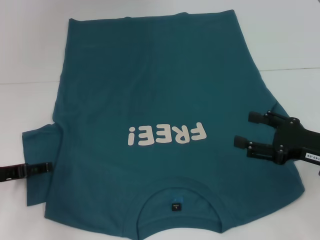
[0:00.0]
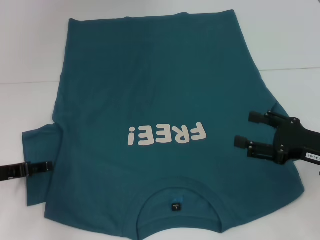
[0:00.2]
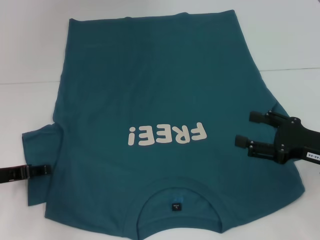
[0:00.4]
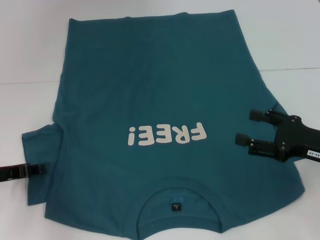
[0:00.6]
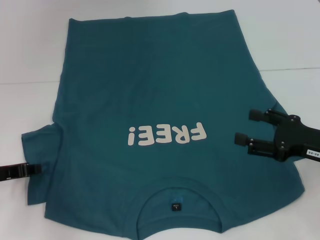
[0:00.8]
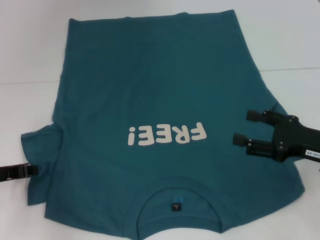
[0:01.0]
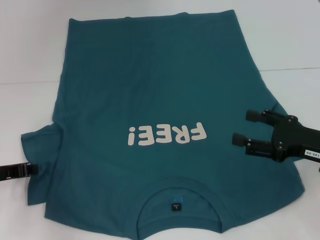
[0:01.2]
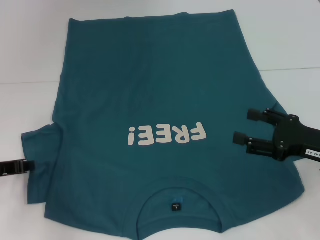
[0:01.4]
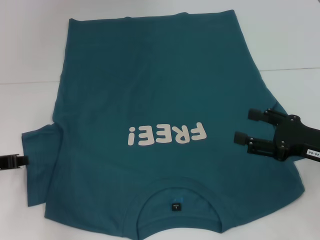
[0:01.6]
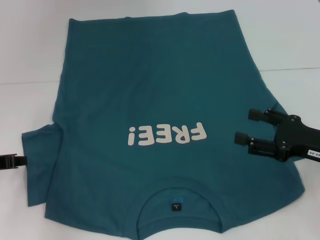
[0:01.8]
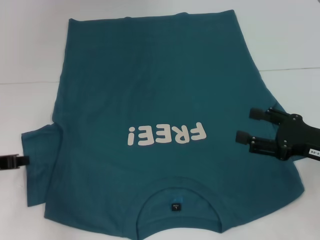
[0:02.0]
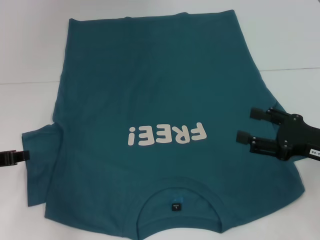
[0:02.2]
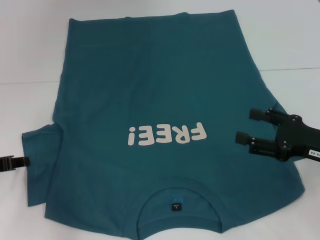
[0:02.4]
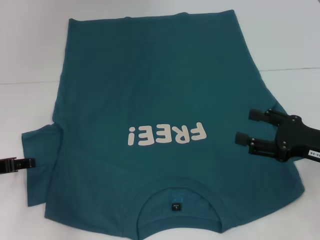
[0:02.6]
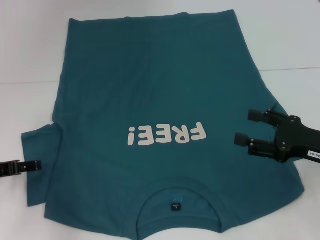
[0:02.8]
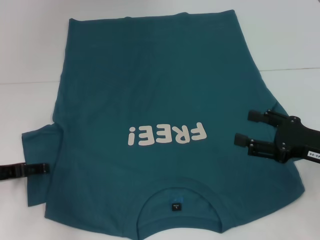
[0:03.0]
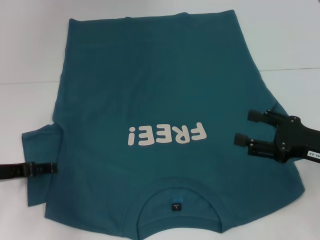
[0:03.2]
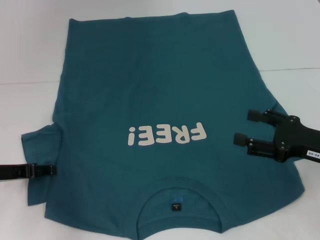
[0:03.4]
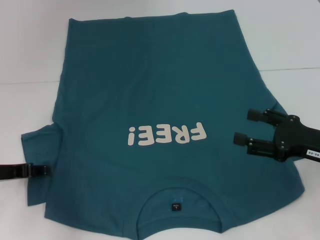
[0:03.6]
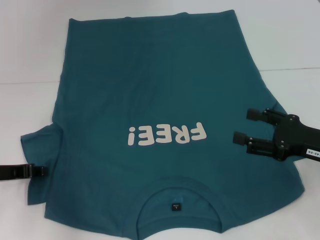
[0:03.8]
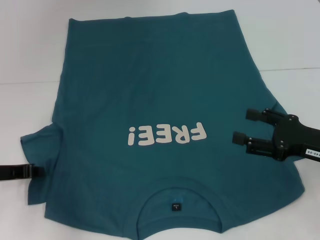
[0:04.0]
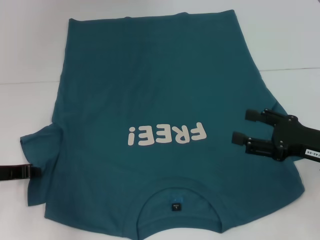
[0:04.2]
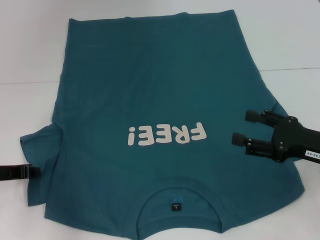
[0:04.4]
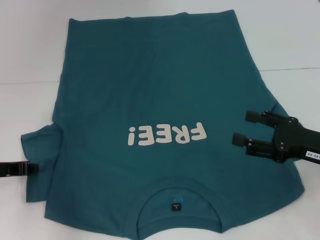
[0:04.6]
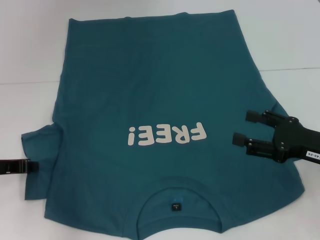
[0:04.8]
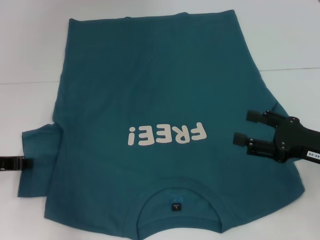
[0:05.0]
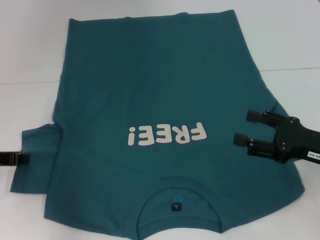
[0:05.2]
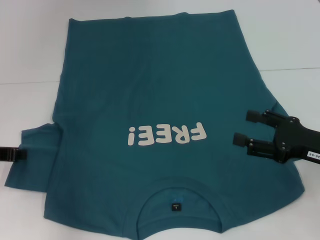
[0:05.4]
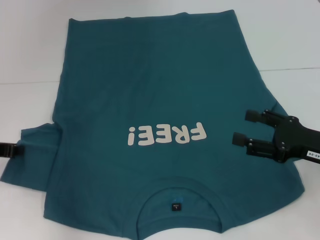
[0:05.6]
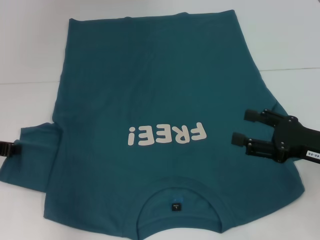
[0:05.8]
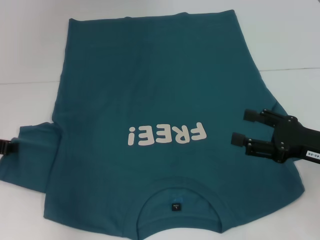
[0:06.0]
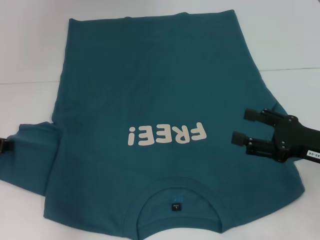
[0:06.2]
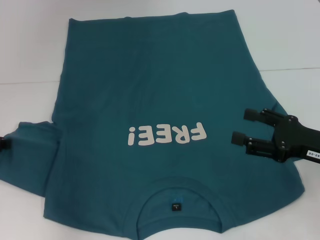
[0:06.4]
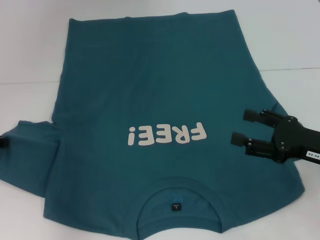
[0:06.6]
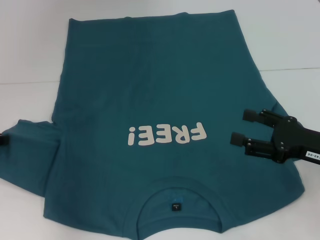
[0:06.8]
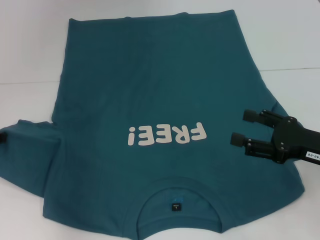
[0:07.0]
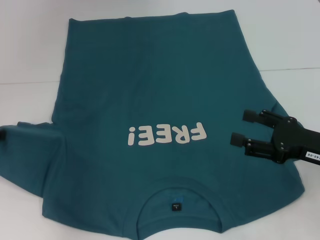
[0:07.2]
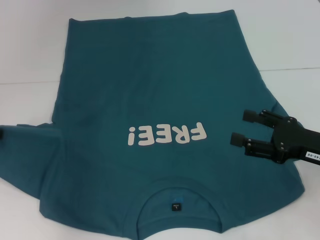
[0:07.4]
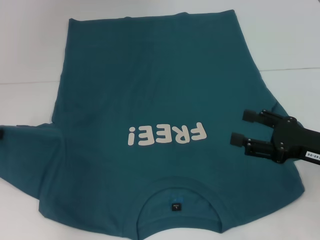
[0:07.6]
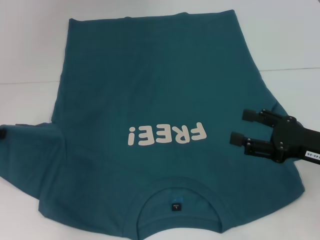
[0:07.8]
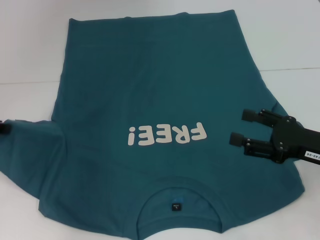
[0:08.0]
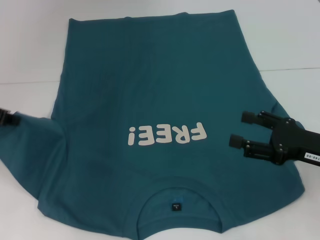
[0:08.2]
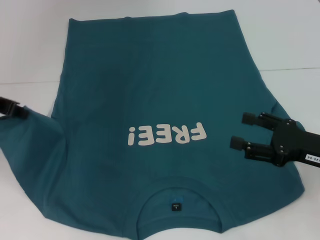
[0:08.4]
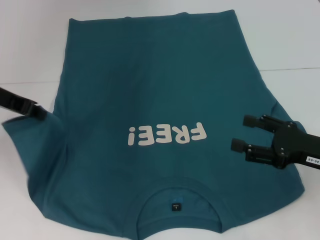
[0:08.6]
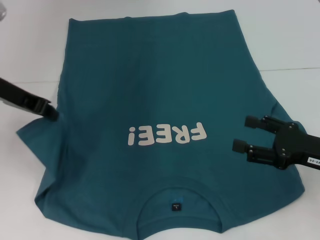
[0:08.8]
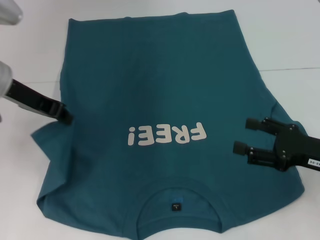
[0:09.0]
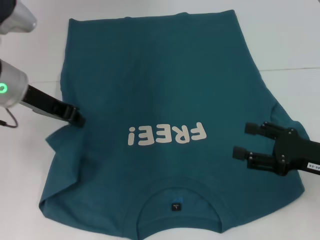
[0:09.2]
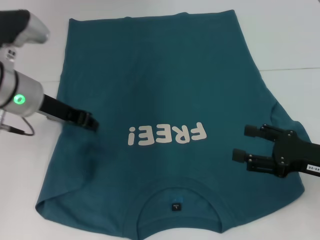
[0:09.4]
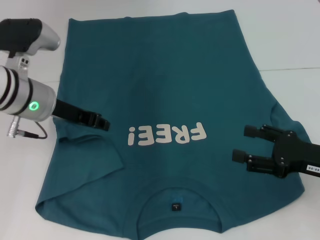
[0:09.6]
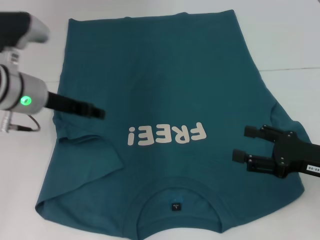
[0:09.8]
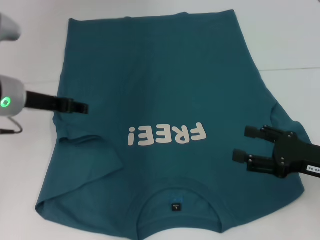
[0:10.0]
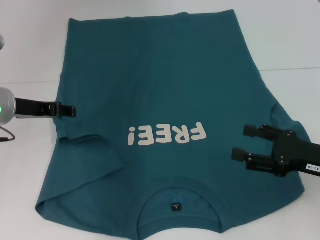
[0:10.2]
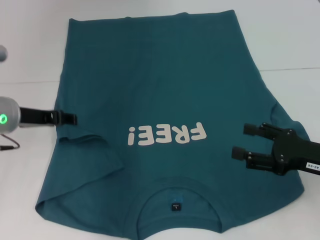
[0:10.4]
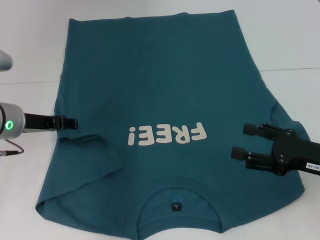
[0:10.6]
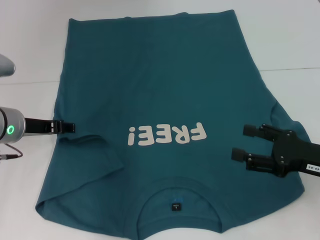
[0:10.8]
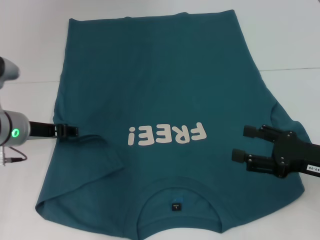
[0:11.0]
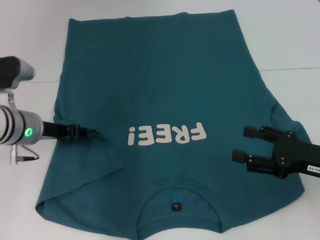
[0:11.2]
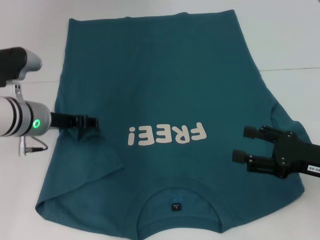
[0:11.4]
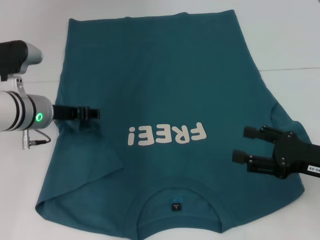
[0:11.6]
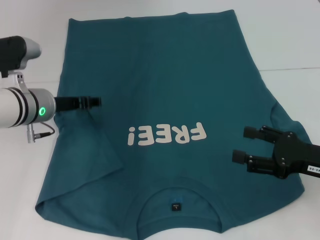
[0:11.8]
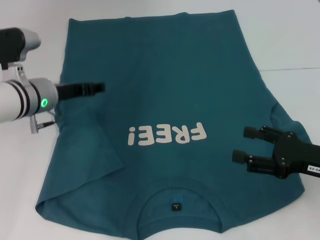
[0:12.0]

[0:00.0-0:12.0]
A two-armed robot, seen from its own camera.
0:00.0 to 0:01.6: The left gripper closes up.
0:01.6 to 0:03.0: The left gripper opens its fingers.
0:04.4 to 0:06.0: The left gripper shifts by approximately 5 cm.
0:06.0 to 0:07.6: The grippers move only a little.
0:07.6 to 0:09.0: The left gripper travels to the right and upward by some 10 cm.
0:09.0 to 0:10.4: The left gripper is displaced downward by roughly 10 cm, and opens up.
0:10.4 to 0:12.0: The left gripper moves roughly 5 cm.

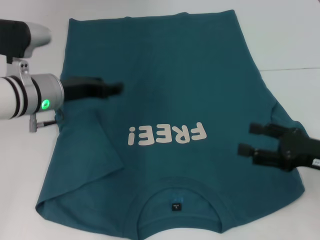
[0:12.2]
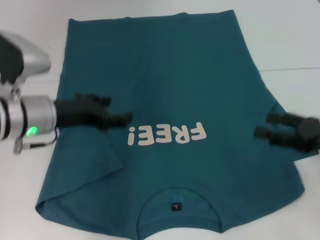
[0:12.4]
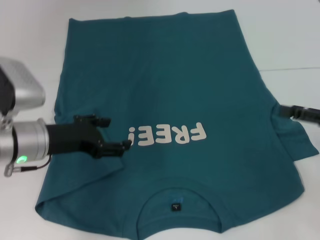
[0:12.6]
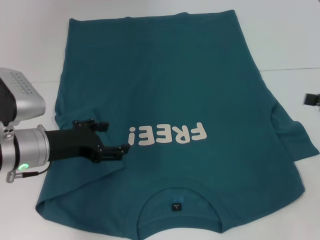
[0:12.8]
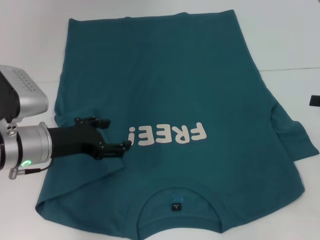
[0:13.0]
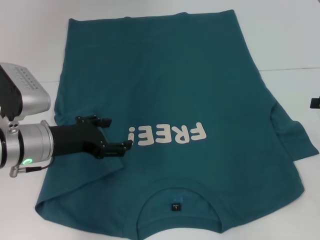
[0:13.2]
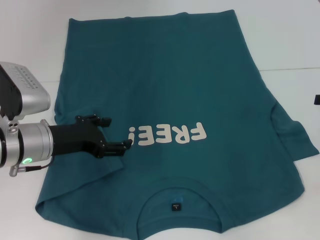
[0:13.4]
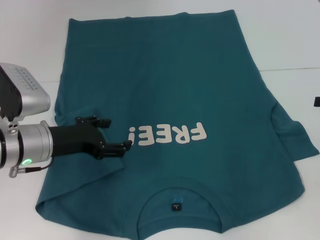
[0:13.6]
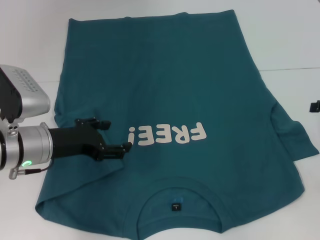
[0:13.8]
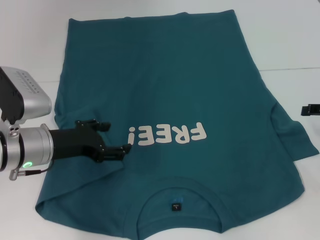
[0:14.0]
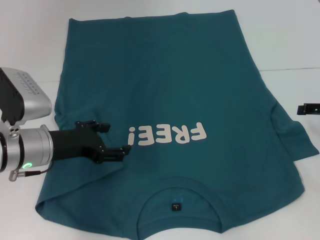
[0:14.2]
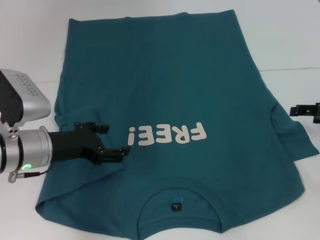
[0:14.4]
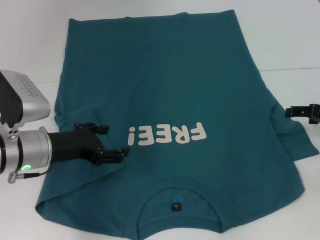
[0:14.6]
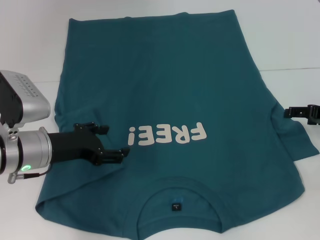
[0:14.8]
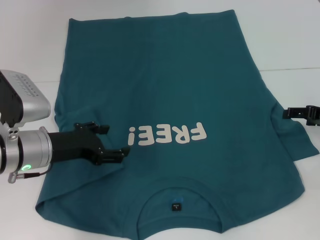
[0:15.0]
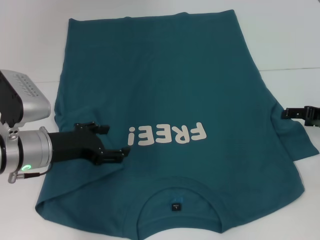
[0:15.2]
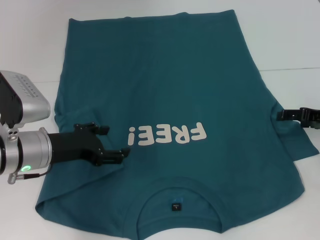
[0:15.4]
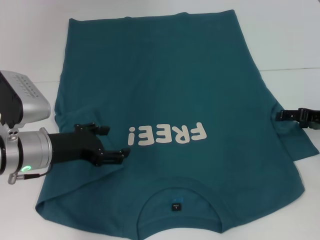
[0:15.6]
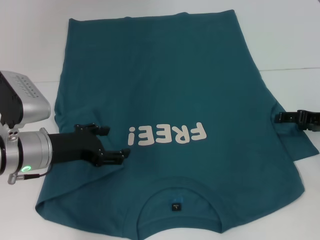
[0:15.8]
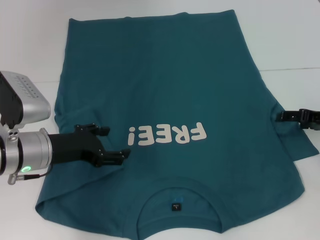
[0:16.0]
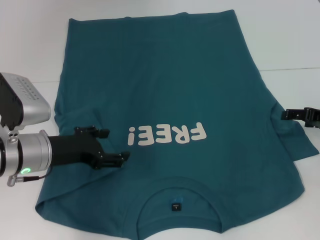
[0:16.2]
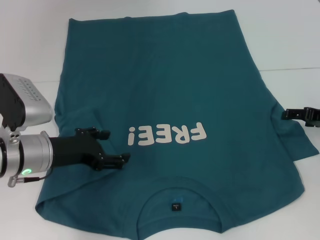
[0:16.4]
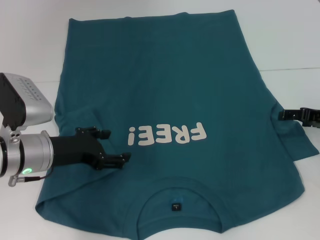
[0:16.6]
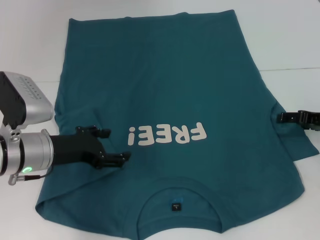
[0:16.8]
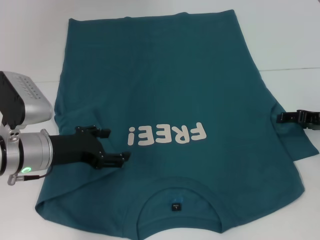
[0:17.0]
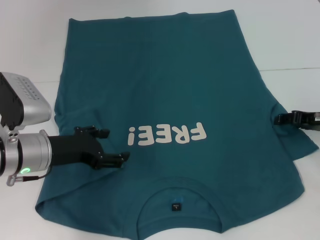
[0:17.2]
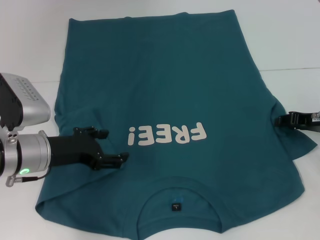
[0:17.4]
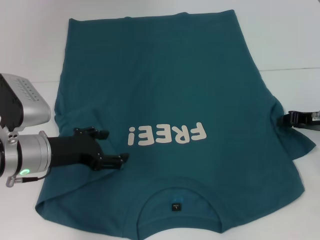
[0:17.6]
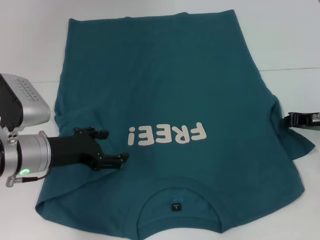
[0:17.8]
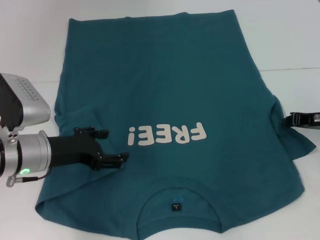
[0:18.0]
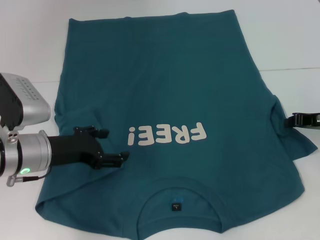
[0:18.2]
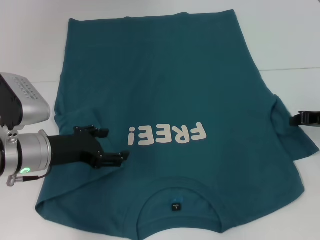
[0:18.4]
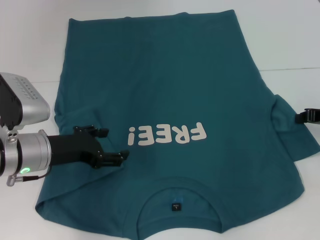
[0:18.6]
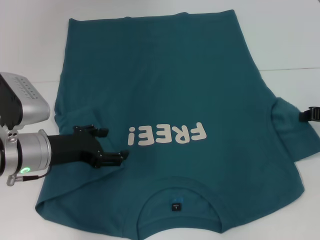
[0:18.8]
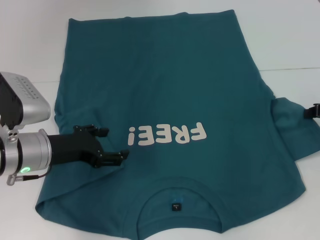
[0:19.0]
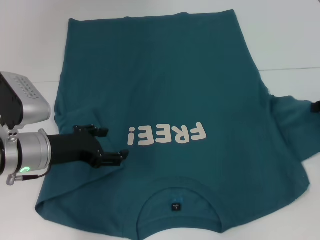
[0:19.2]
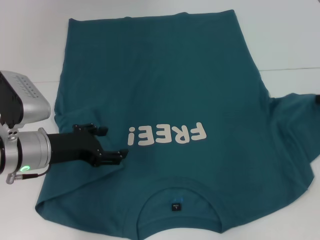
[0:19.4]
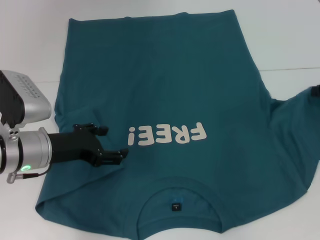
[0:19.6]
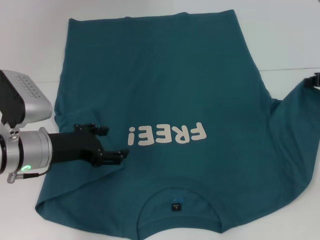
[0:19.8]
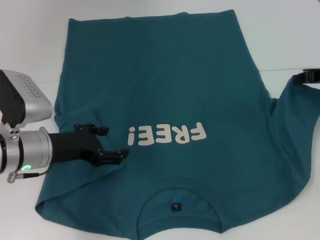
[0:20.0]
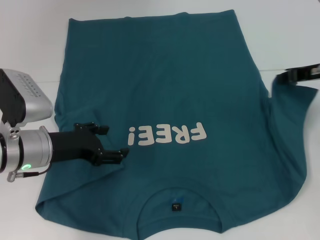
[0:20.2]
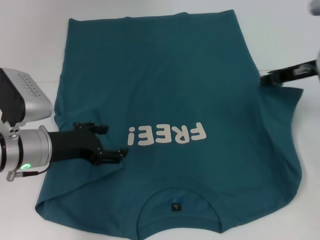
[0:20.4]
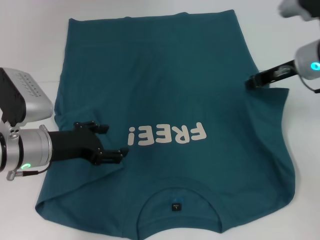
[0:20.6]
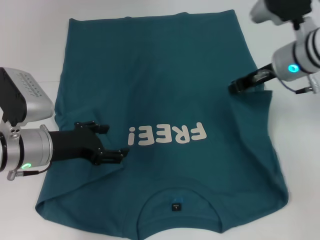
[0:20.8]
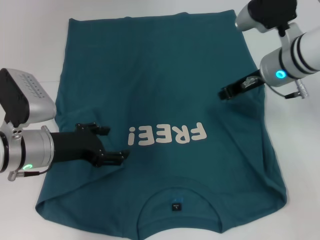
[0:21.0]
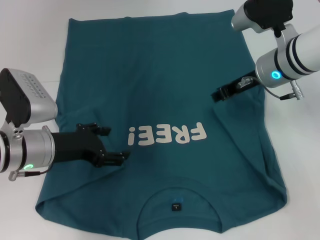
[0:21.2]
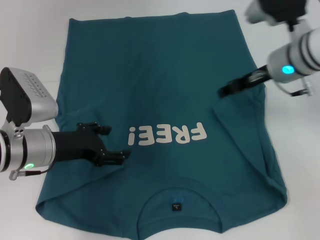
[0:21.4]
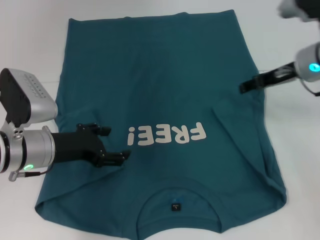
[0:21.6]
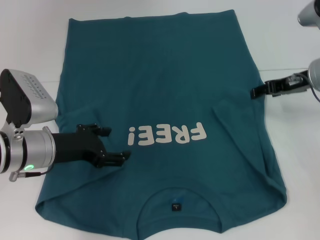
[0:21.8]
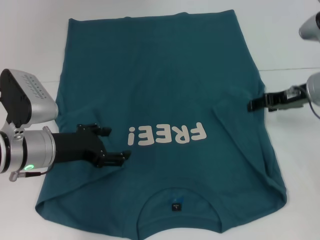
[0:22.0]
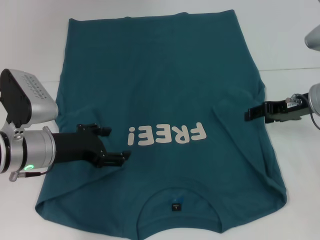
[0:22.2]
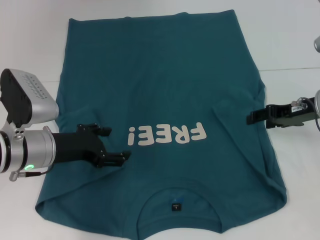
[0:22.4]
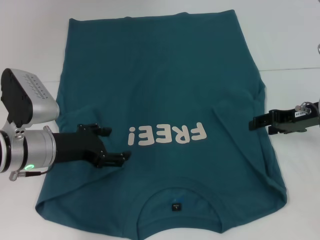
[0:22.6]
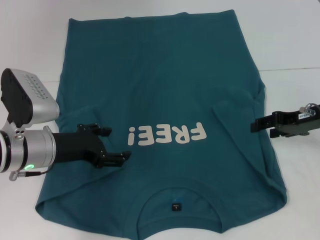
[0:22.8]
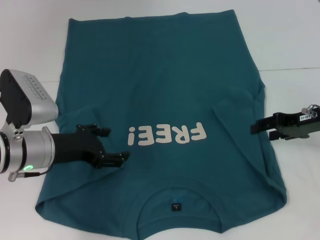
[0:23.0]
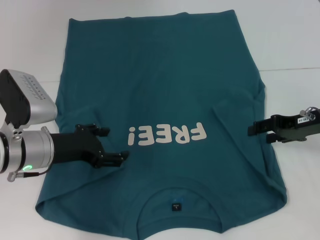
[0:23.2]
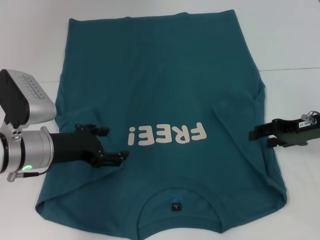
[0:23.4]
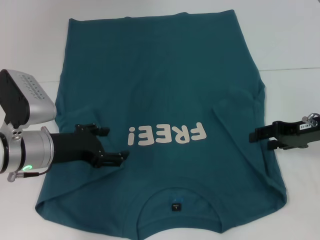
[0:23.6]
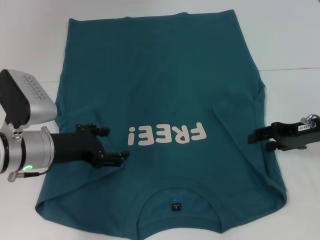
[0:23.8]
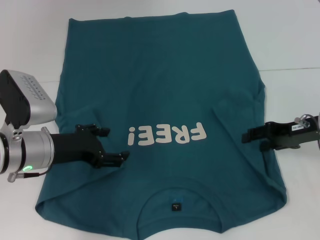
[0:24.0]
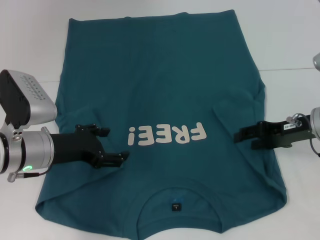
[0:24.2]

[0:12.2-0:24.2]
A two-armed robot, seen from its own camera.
0:12.2 to 0:13.8: The right gripper shifts about 10 cm to the right and forward; the left gripper goes roughly 5 cm backward.
0:13.8 to 0:15.2: The right gripper moves some 5 cm.
0:15.2 to 0:16.6: Both grippers stay put.
0:16.6 to 0:18.2: The right gripper closes up.
0:18.2 to 0:19.8: The right gripper moves upward, roughly 5 cm.
0:19.8 to 0:21.2: The right gripper shifts approximately 15 cm to the left.
0:21.2 to 0:22.6: The right gripper heads to the right and backward, covering about 10 cm, and opens its fingers.
0:22.6 to 0:24.2: The grippers make only small movements.
